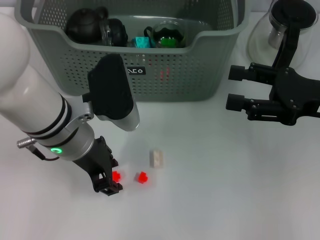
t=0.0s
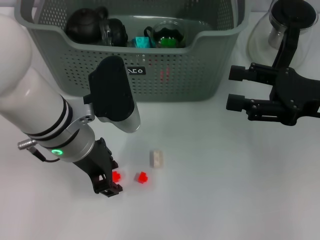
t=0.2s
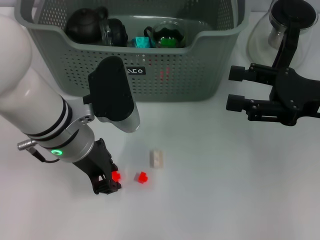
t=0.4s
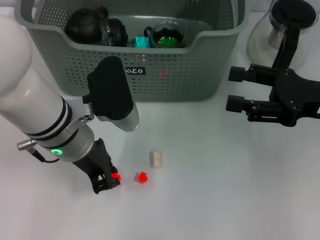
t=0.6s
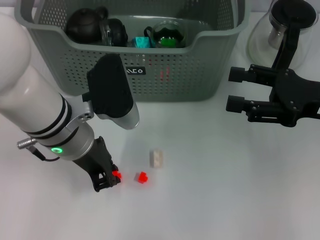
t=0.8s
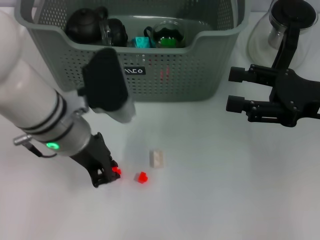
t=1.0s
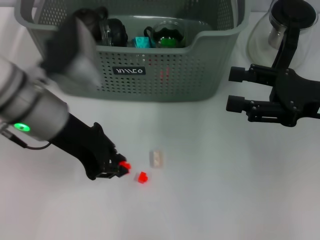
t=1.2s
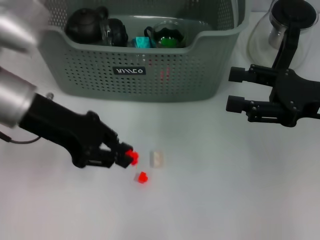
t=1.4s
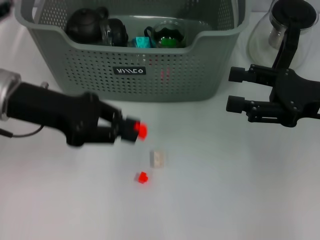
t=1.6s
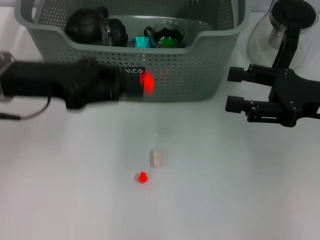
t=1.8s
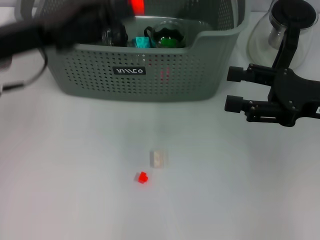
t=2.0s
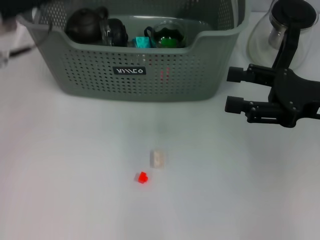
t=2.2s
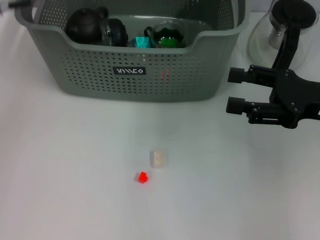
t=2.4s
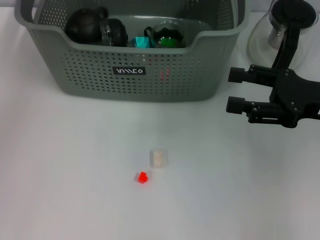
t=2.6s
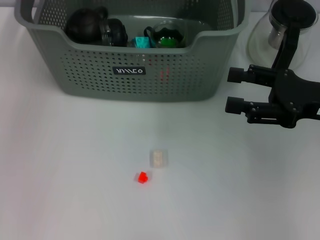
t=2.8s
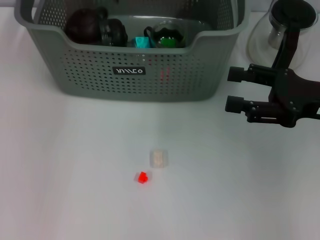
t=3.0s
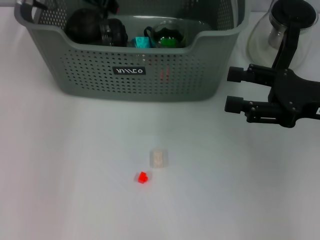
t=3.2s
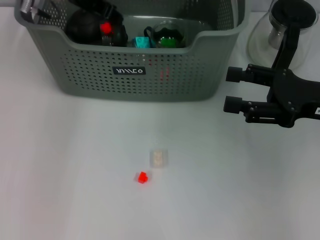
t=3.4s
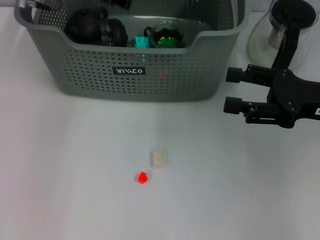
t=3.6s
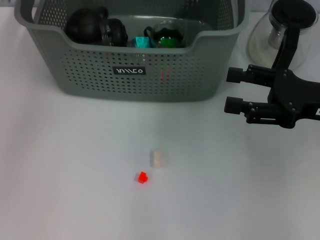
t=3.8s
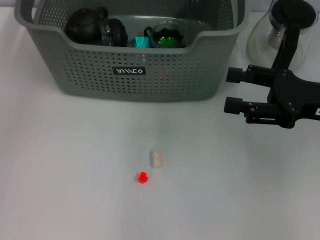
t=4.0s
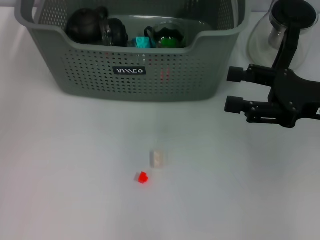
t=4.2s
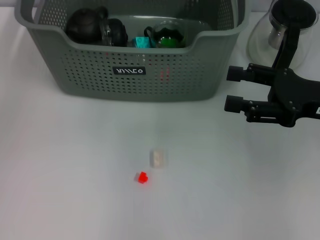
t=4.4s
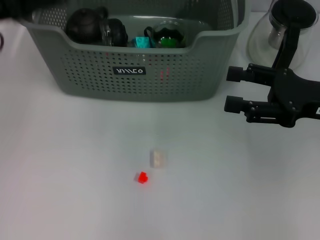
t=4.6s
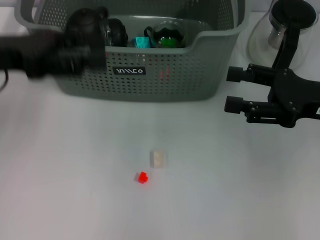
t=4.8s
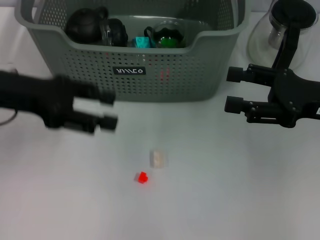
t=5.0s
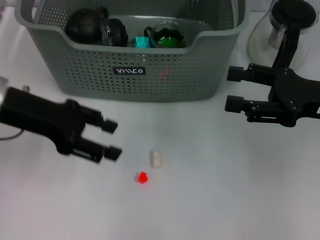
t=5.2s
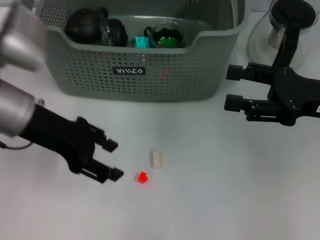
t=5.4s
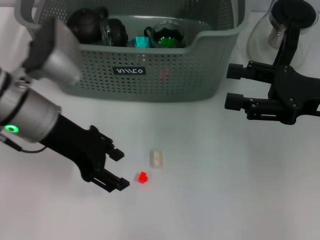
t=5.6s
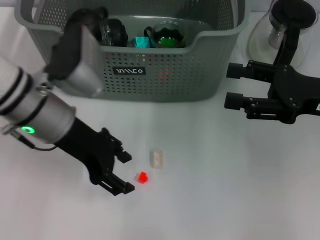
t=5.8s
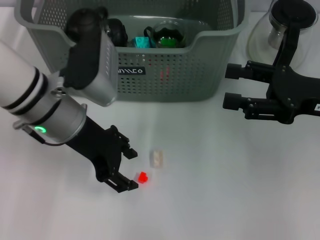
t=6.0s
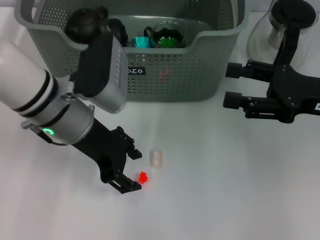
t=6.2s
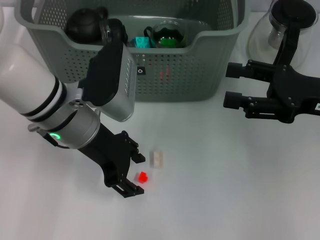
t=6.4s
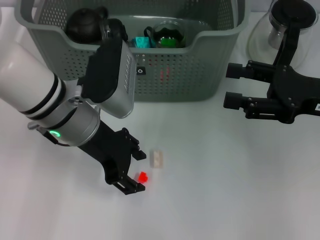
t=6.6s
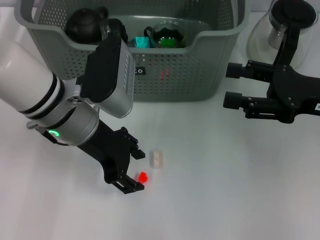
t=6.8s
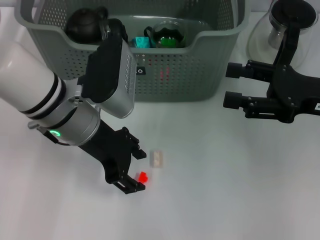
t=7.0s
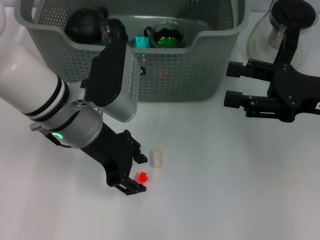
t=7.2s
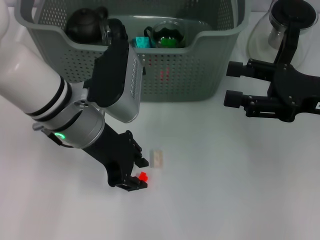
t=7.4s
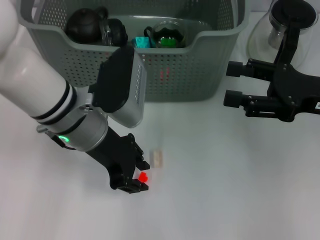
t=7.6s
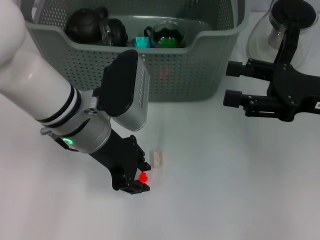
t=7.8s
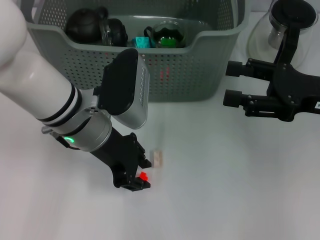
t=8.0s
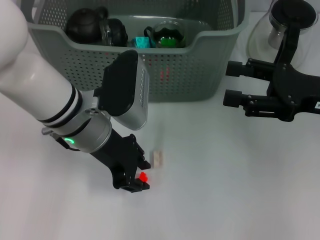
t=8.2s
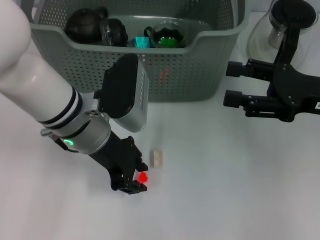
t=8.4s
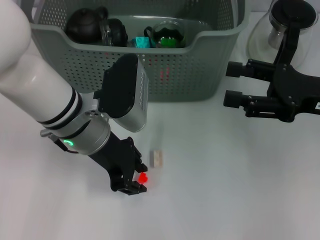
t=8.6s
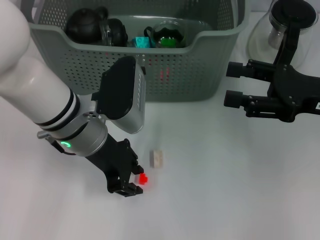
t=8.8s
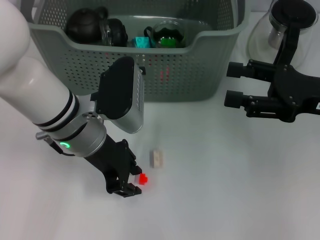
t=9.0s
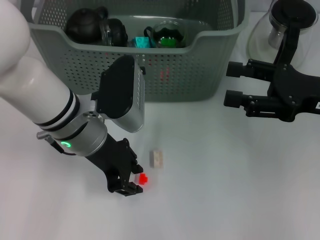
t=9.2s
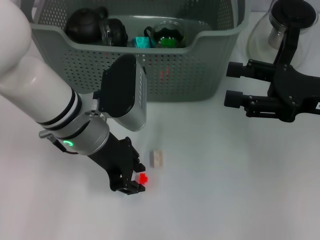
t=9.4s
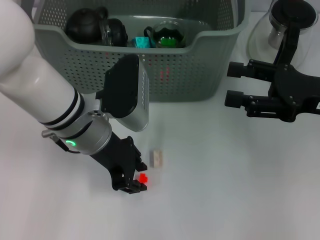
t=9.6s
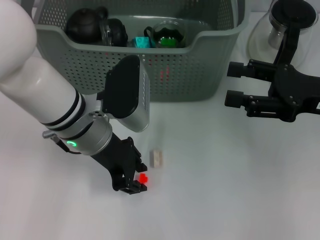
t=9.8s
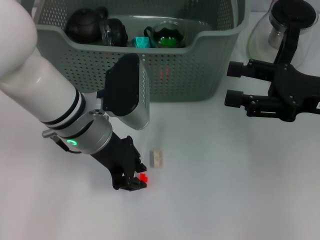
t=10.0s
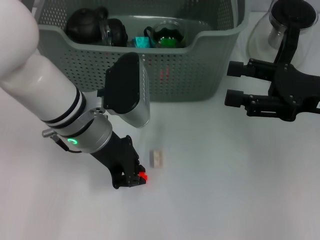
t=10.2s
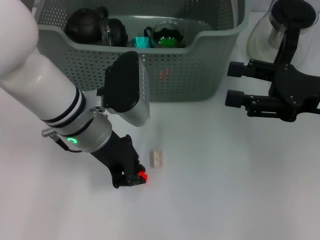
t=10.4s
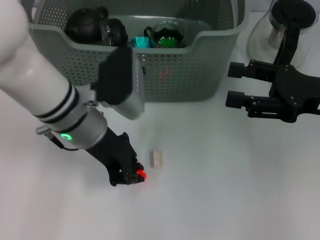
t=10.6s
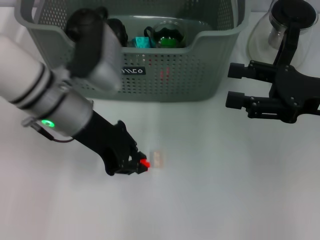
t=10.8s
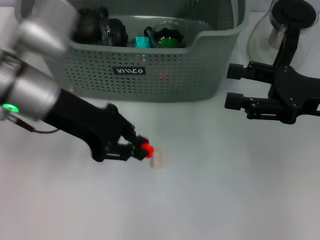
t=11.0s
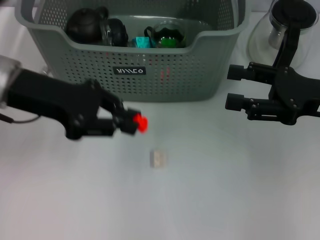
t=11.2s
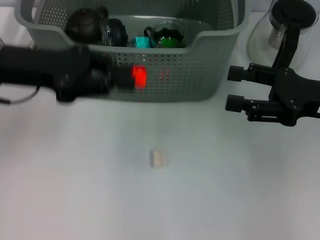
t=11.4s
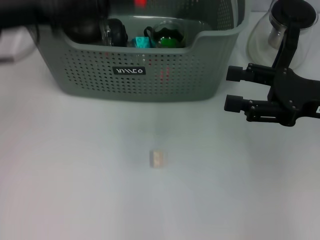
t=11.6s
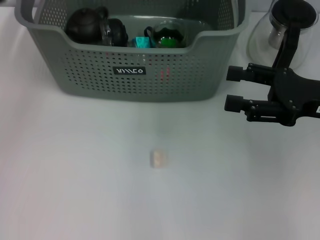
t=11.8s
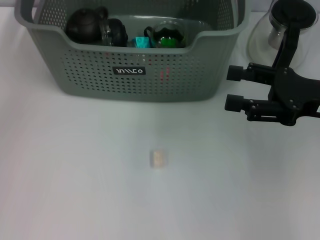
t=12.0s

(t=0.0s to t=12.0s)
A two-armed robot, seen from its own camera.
Task of the whole recording: pick up the teacup on the table and place it into the storage bin, pick up the block on the table and place it into the storage bin.
Step, t=0.8s - t=3.4s: Place the orange block in the storage box with left gripper.
Step, t=3.8s - t=10.2s: Grasp the orange block with left gripper.
t=0.0s - t=1.6s: The left gripper travels to the left by some 10 cm, and closes.
t=1.6s - t=3.0s: The left gripper goes about 15 cm forward and upward.
t=4.4s - t=6.0s: The left gripper moves to the right and downward, about 15 cm.
t=6.0s - t=9.0s: The grippers move only a little.
t=9.0s - t=10.4s: Neither gripper changes place.
t=10.4s - t=12.0s: The left gripper shifts some 25 cm upward, to the left and forward.

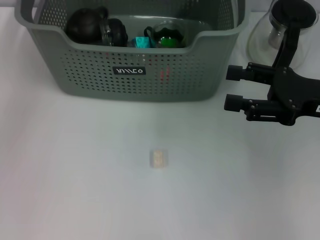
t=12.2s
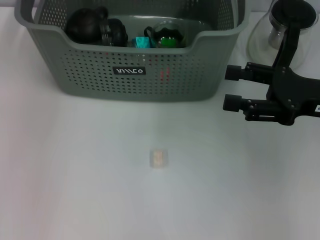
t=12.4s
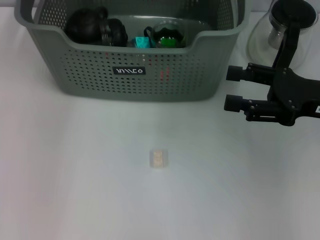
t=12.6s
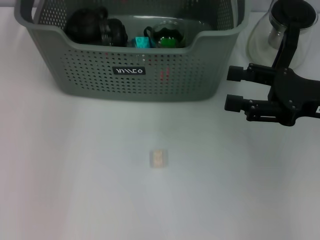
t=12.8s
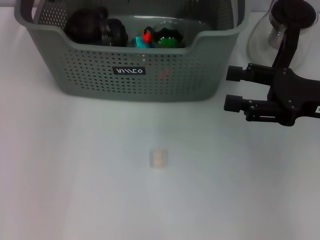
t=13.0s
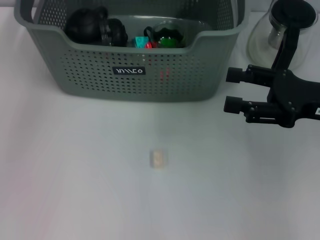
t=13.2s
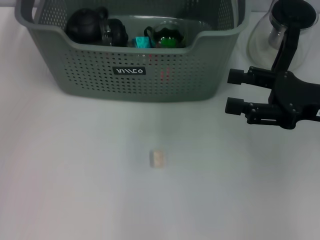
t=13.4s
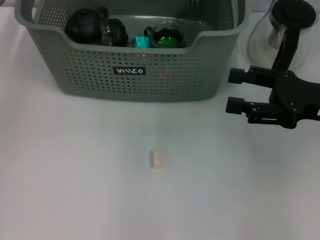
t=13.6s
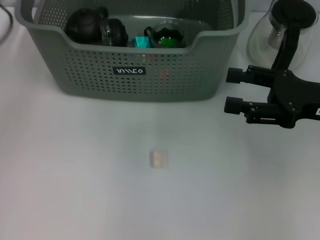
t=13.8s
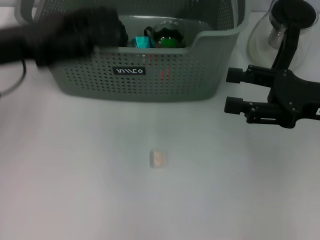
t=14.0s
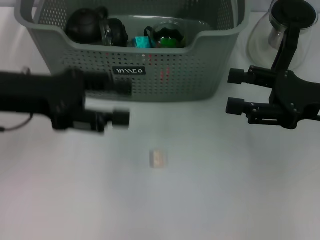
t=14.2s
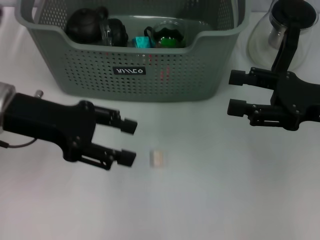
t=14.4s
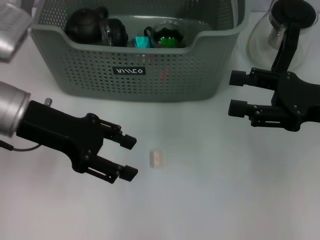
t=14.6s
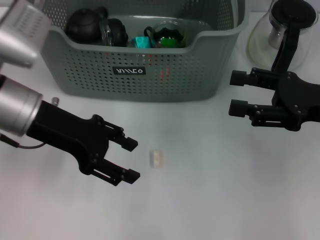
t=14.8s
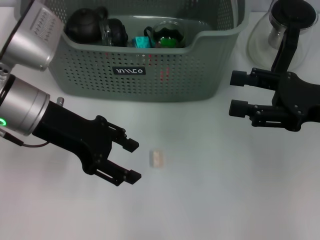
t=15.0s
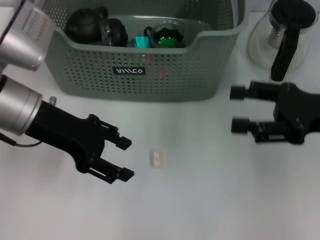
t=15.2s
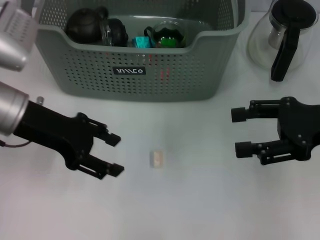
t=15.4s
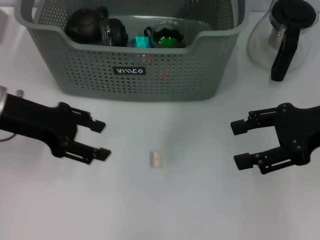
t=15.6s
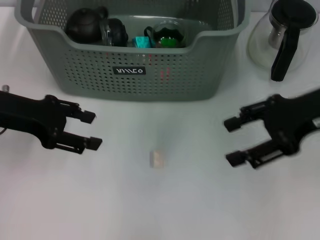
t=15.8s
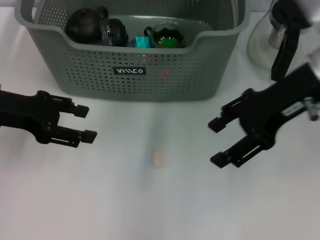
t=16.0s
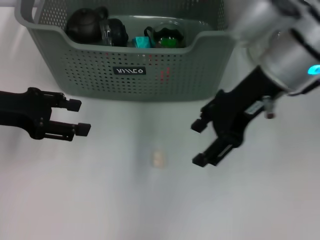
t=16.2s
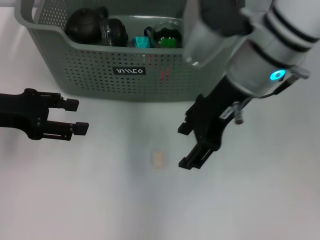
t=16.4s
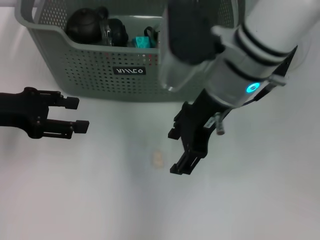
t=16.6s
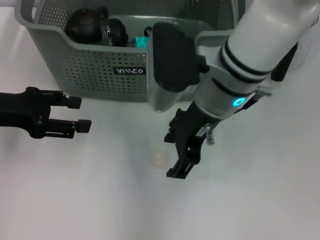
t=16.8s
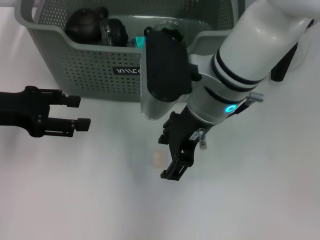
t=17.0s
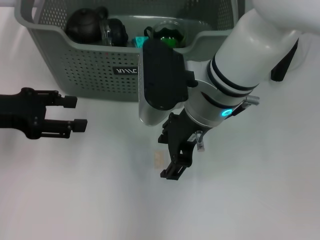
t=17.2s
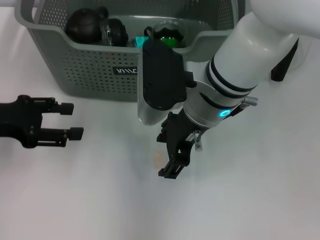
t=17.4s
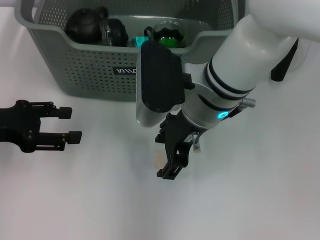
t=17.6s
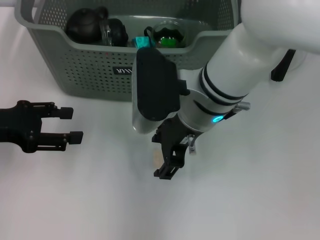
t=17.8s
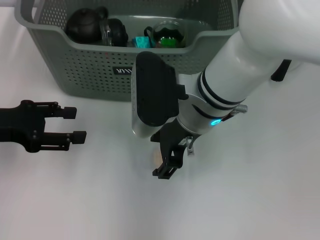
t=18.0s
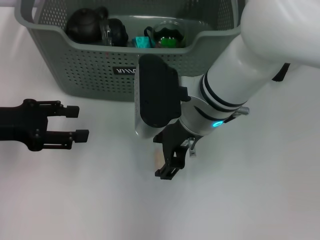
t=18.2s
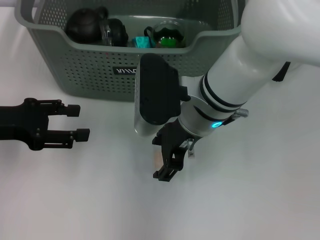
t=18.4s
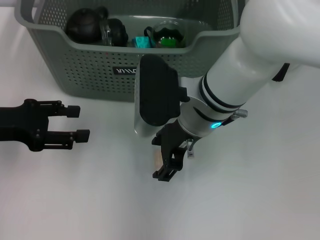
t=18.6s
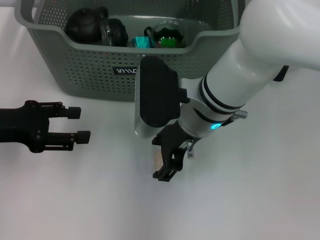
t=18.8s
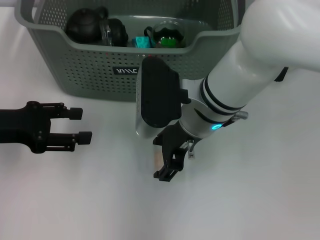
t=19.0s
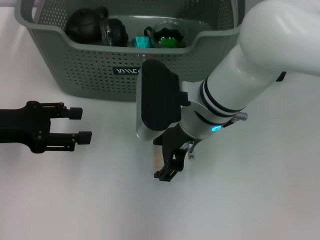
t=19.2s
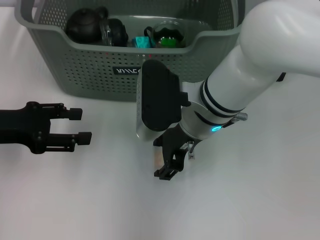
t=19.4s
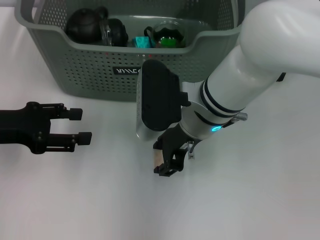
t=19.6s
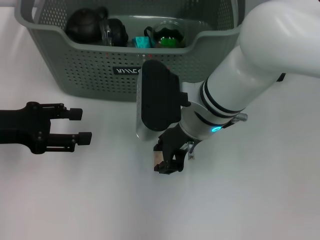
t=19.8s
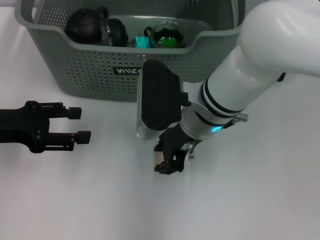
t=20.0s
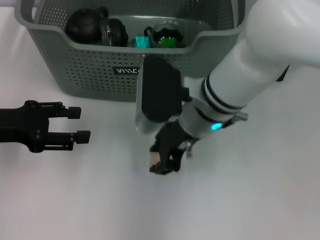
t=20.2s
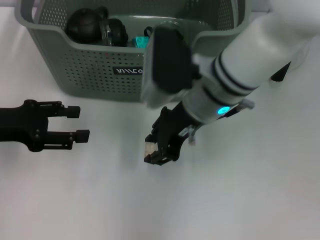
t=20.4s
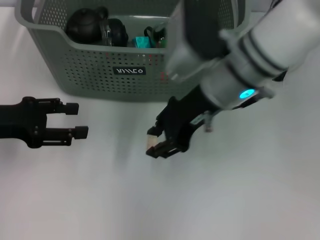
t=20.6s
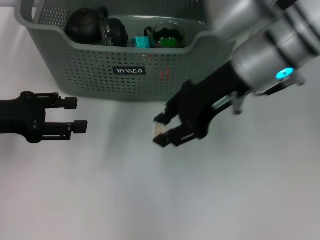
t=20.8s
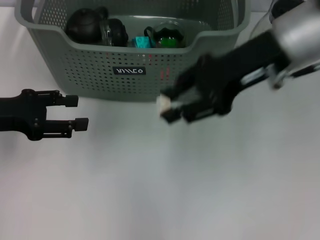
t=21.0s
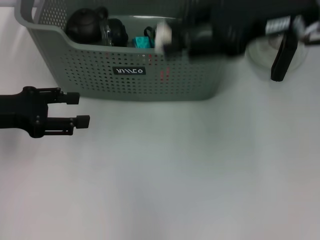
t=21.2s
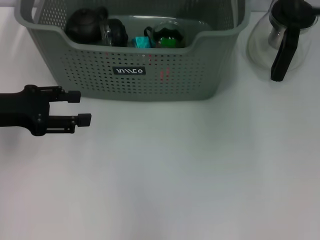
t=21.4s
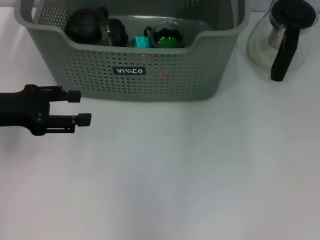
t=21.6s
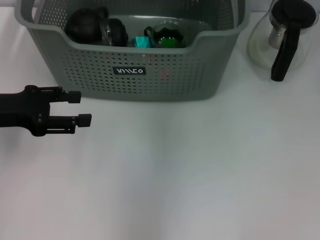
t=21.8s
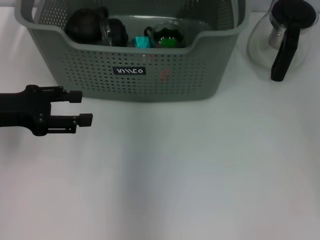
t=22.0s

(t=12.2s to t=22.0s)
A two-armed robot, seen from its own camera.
Task of the whole recording: pick up the teacup on the table and place it into the storage bin, pick up the block on the table and place it into the storage bin.
Step, t=13.2s - t=19.8s: Grasp the white block with right gripper.
t=13.6s - t=15.0s: The left gripper shifts about 10 cm to the right, downward and backward.
t=15.0s - t=16.4s: The right gripper shifts some 20 cm to the left and upward, while the left gripper shifts roughly 10 cm to the left.
t=16.4s - t=17.8s: The right gripper goes about 10 cm downward and to the left.
t=17.8s - t=19.2s: There are only small adjustments of the grippers.
t=19.2s - t=20.6s: The right gripper goes about 5 cm upward.
t=20.6s - t=22.0s: The right gripper shifts approximately 15 cm upward and forward.
